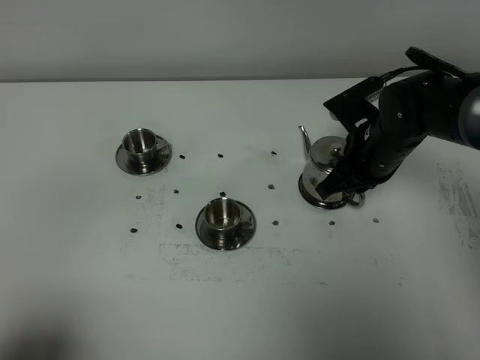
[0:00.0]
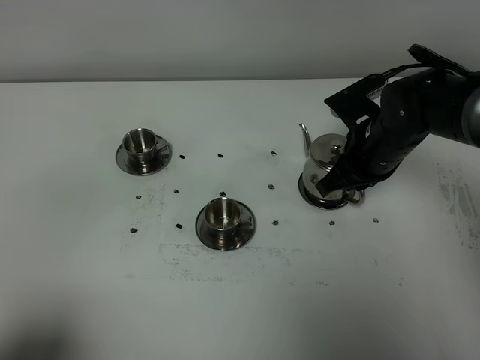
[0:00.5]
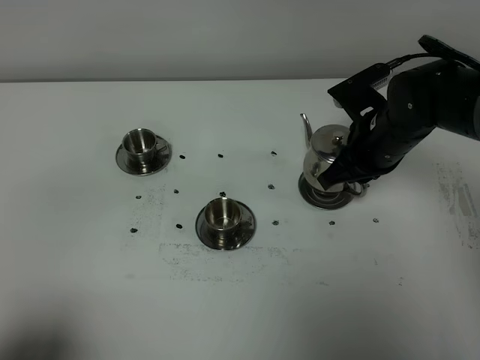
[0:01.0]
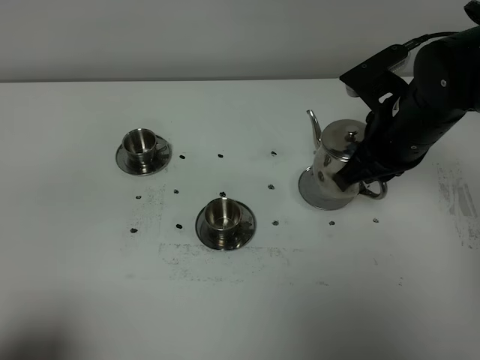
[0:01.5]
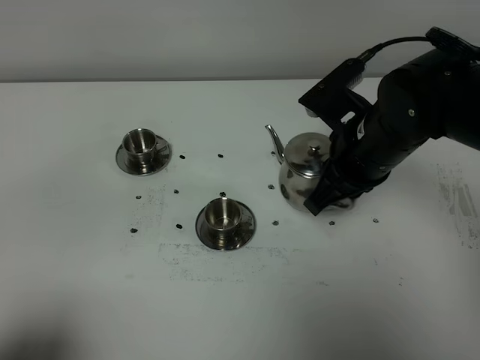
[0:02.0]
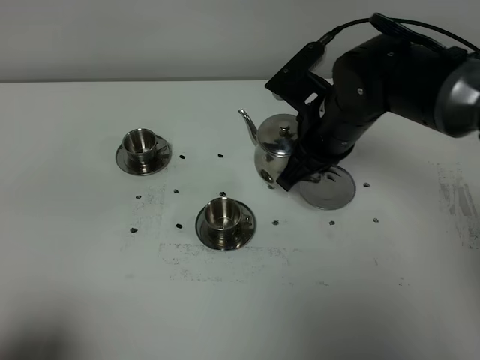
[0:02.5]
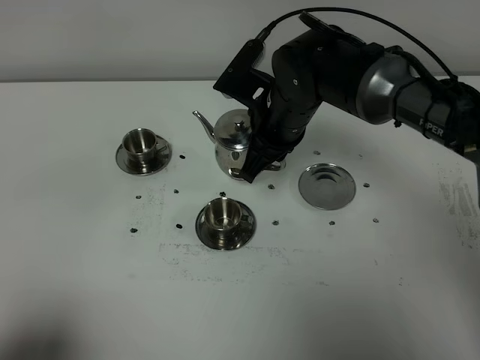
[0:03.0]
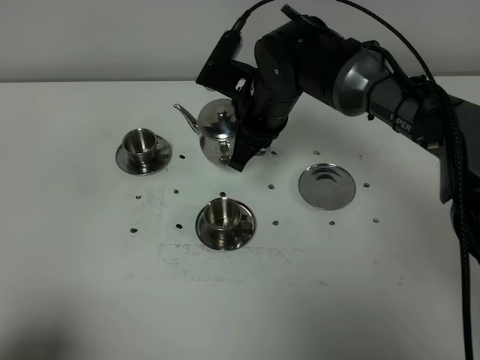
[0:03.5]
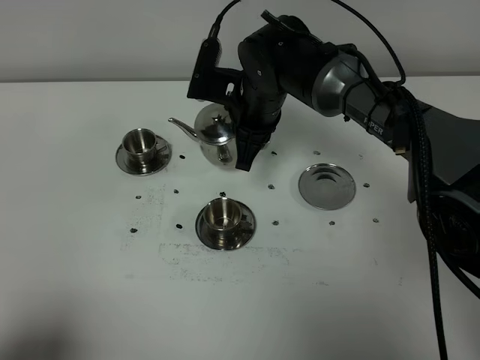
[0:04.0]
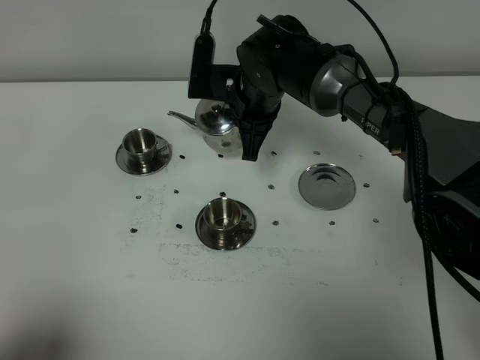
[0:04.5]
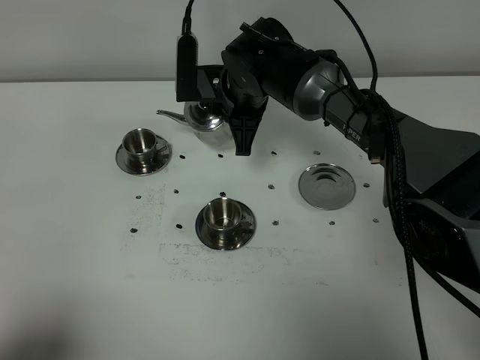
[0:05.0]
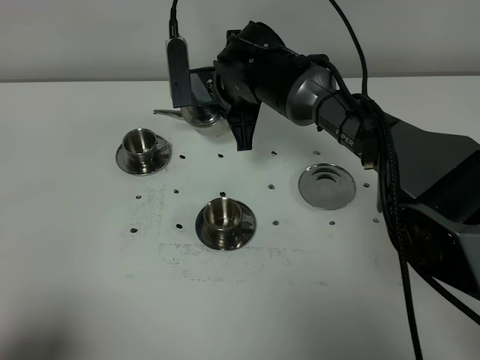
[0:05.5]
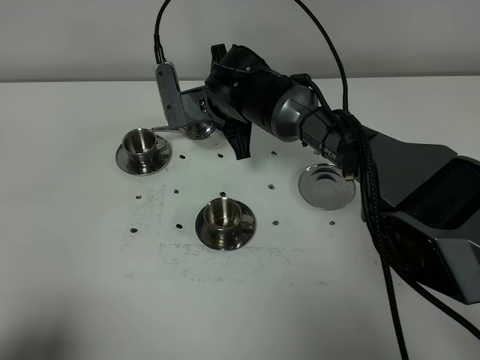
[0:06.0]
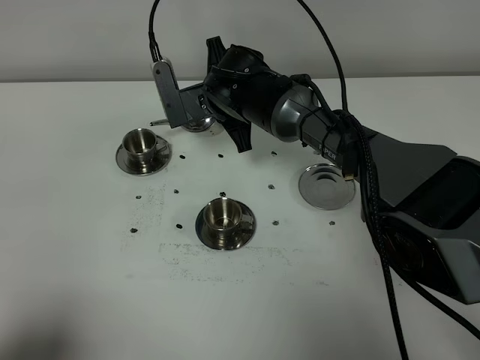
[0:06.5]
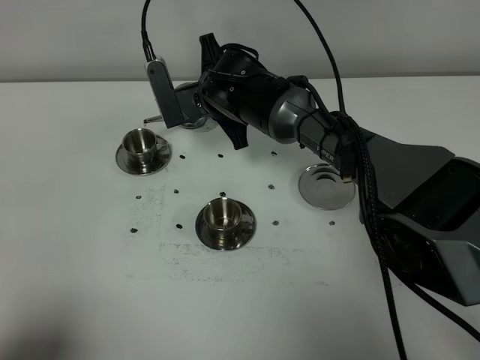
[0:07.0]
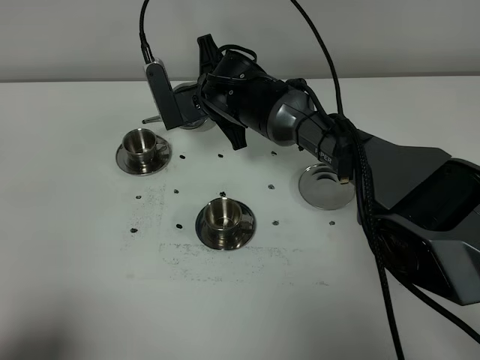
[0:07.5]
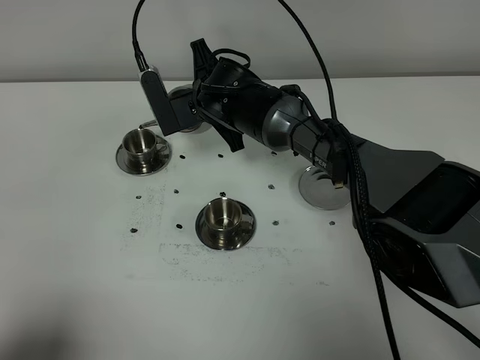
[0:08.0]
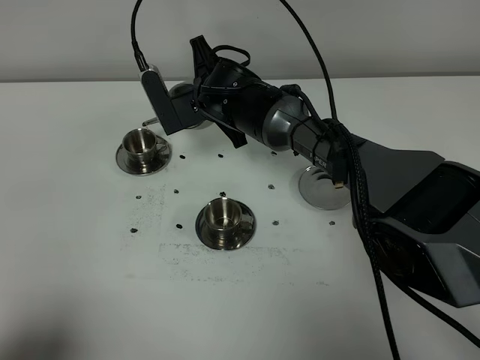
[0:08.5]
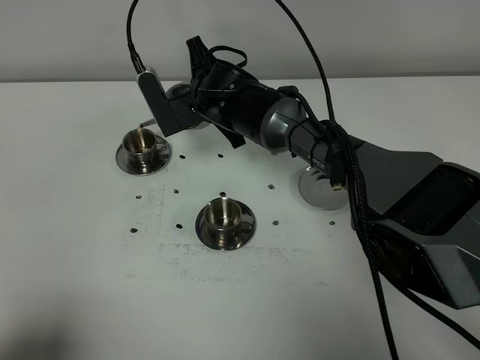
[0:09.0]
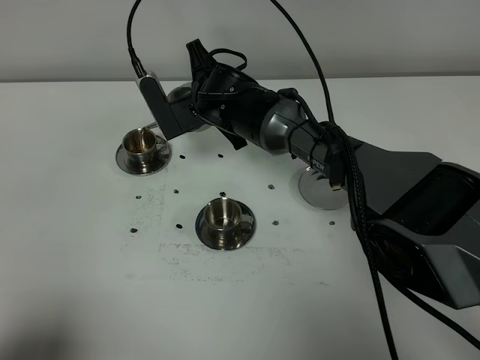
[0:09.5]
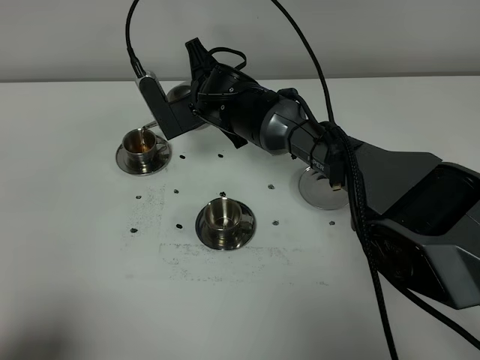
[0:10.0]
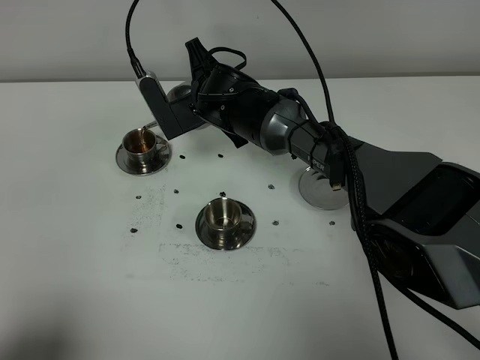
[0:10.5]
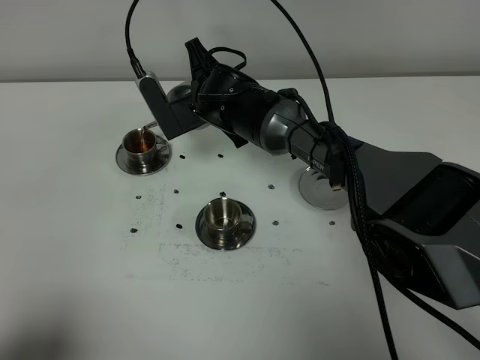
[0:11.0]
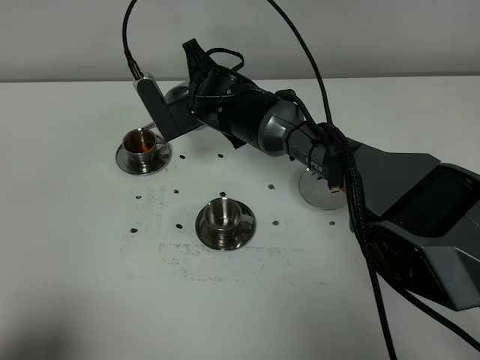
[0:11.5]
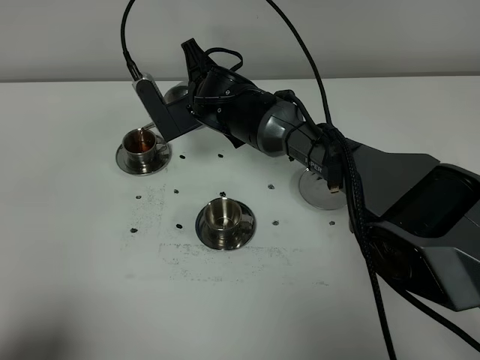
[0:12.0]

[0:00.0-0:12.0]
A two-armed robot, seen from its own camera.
Task of the whole recording: grasp the stainless steel teapot and pour the tea into the two stainless steel teacups one by one, put the stainless steel teapot back in its original place.
0:00.0 to 0:02.0: The right gripper shifts some 10 cm upward and backward.
0:02.0 to 0:04.0: The right gripper is displaced forward and to the left by some 15 cm.
0:06.0 to 0:10.0: The grippers move only a little.
0:10.0 to 0:12.0: Both grippers stay put.

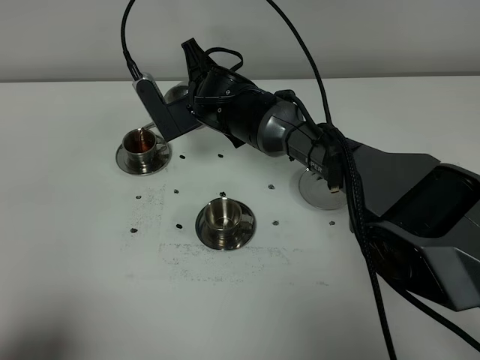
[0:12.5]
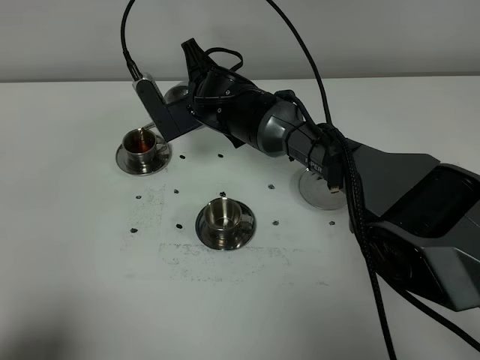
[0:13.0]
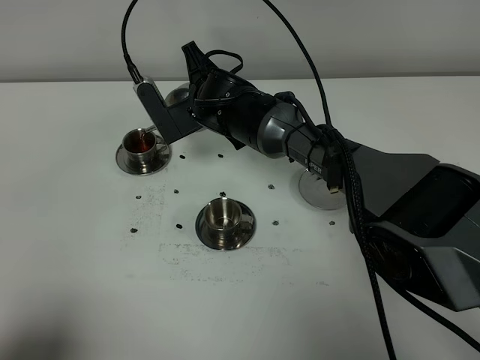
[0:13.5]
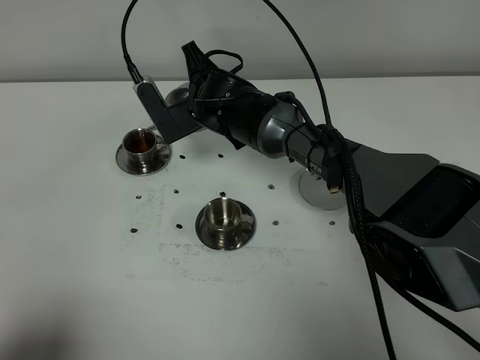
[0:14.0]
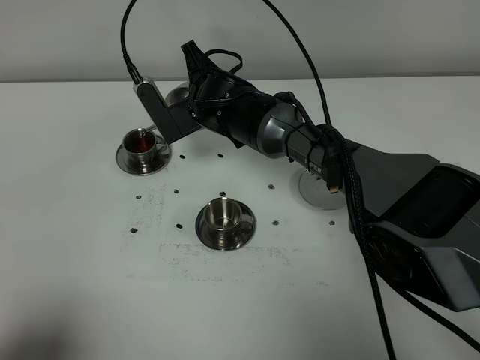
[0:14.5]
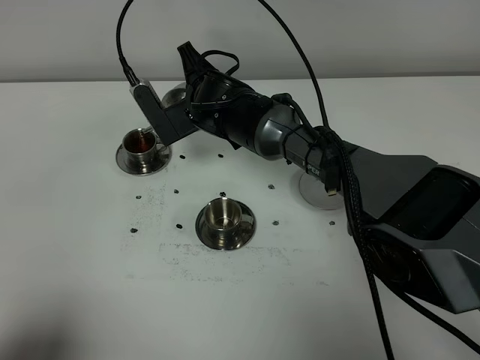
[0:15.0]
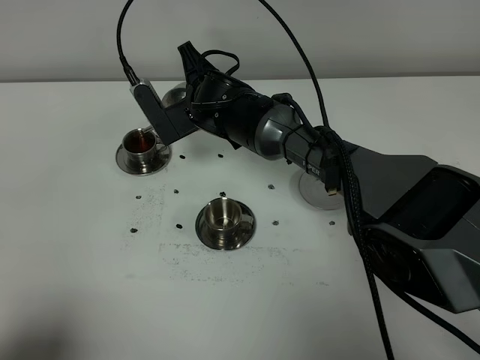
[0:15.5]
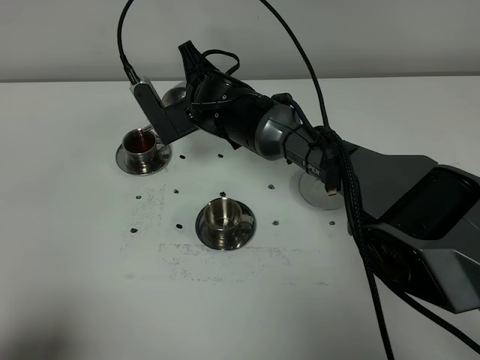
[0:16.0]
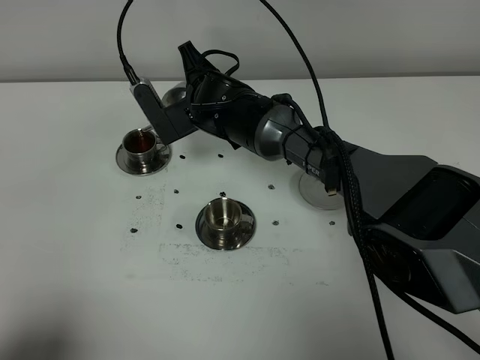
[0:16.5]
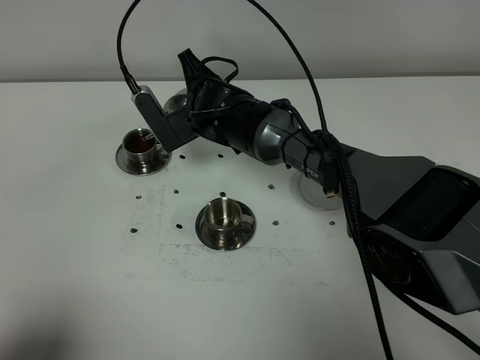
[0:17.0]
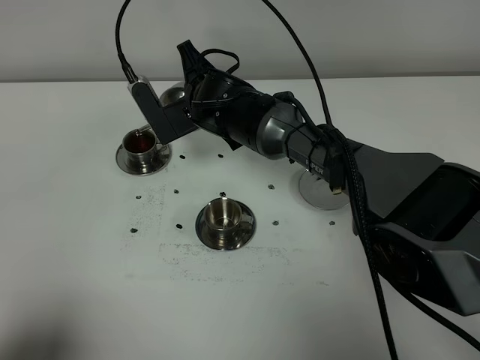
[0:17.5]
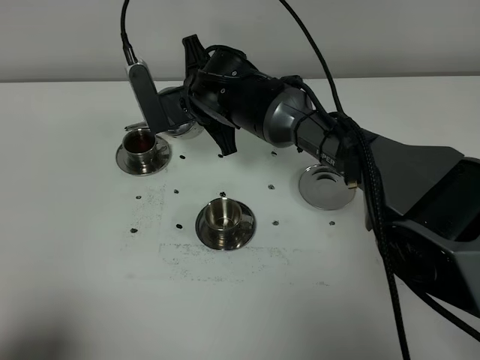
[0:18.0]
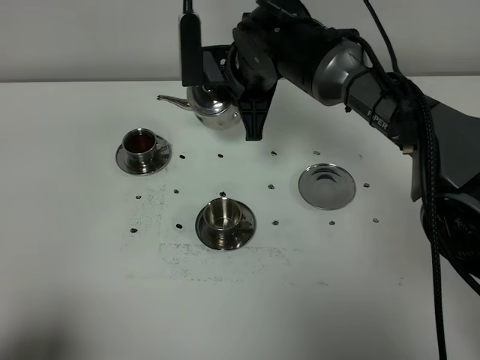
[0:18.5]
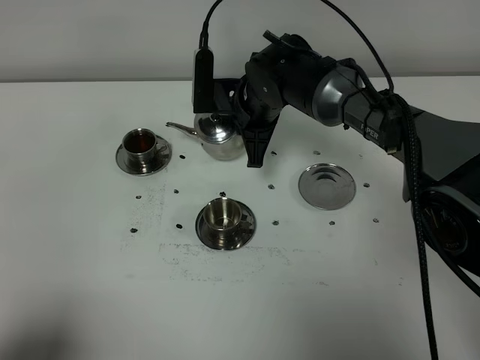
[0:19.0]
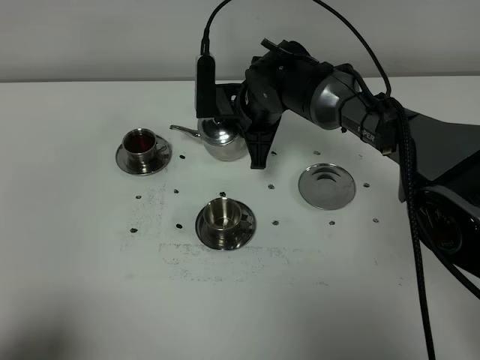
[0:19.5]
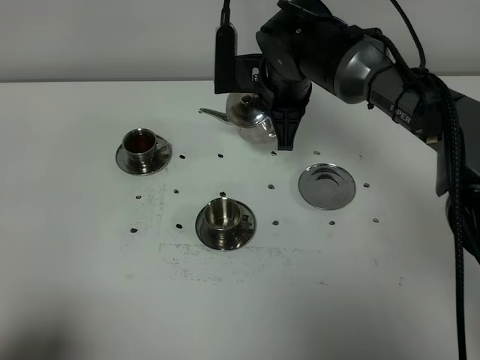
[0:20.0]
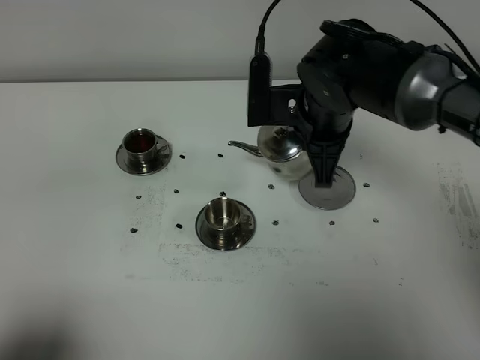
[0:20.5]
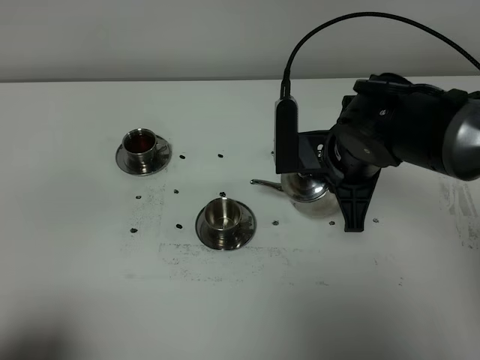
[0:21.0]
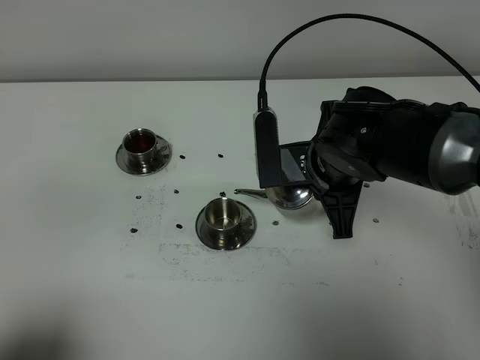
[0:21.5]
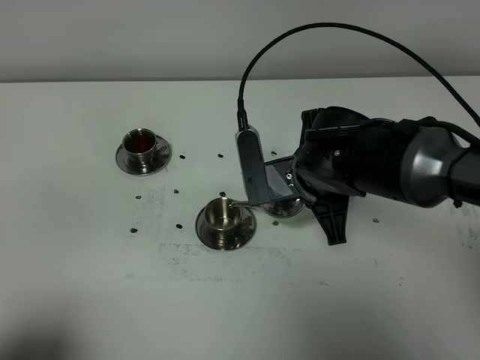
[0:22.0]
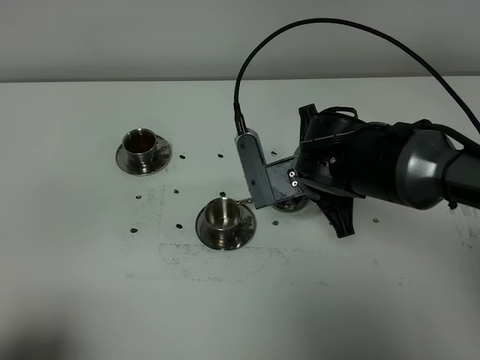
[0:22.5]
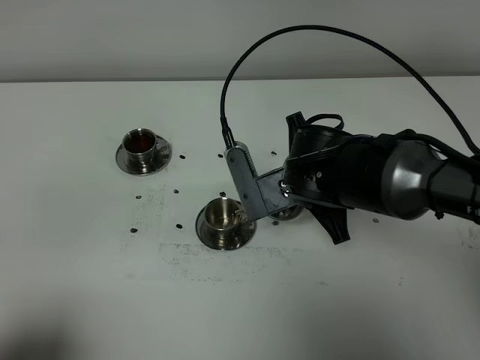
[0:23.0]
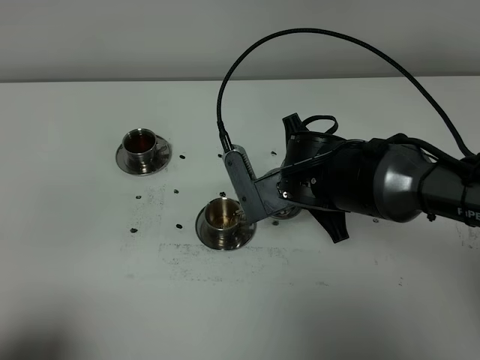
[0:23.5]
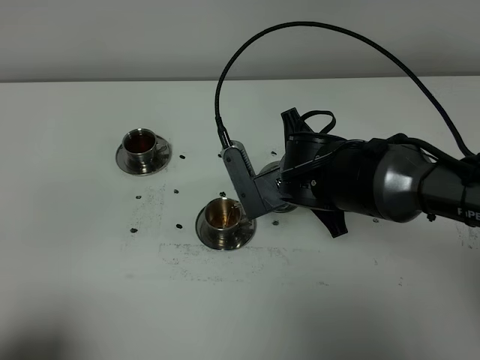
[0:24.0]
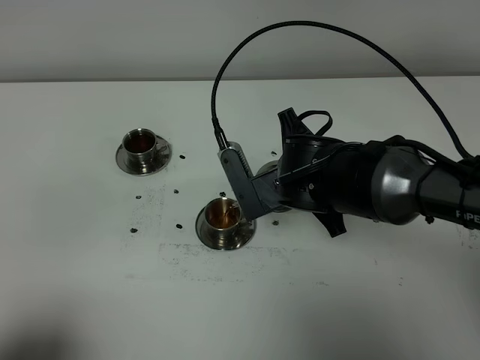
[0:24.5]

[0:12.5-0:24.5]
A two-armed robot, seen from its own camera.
Task of the whole recording: grasp the stainless steel teapot and pour the tea into the two stainless steel teacups one by one, put the stainless steel teapot back in its original place.
0:12.5 to 0:16.5: The two grippers keep their place.
0:16.5 to 0:18.5: The right gripper moves upward and to the right, some 10 cm.
0:18.5 to 0:20.5: The right gripper is displaced backward and to the right by approximately 10 cm.
0:20.5 to 0:22.5: The right gripper is displaced backward by some 5 cm.
0:22.5 to 0:24.5: There are only small adjustments of the grippers.

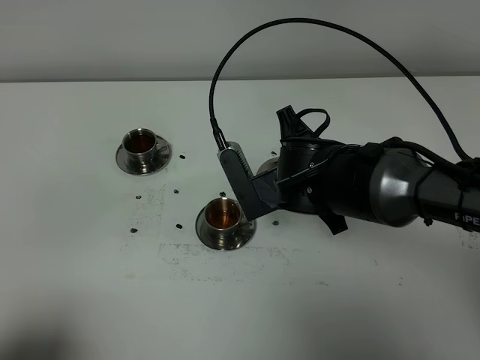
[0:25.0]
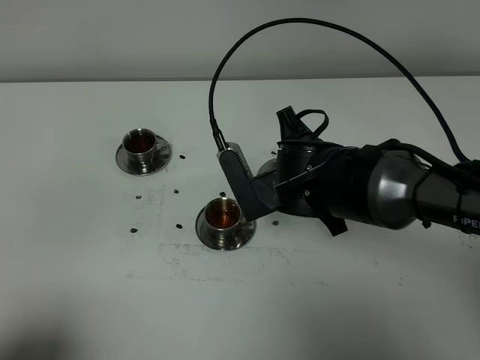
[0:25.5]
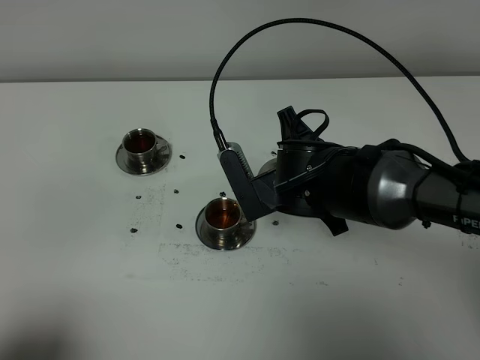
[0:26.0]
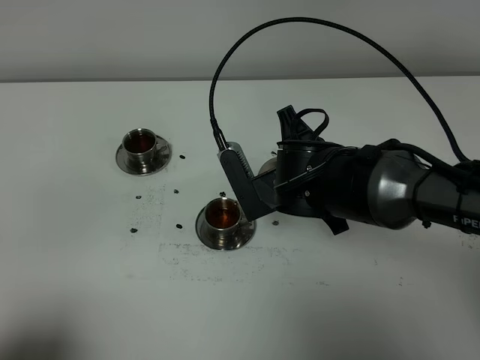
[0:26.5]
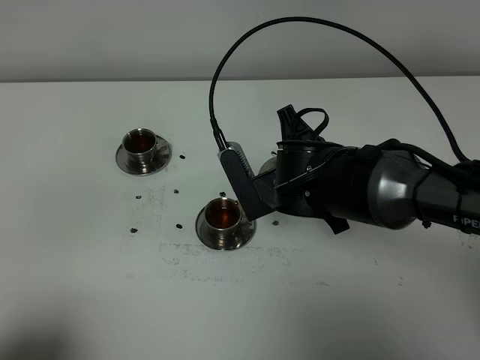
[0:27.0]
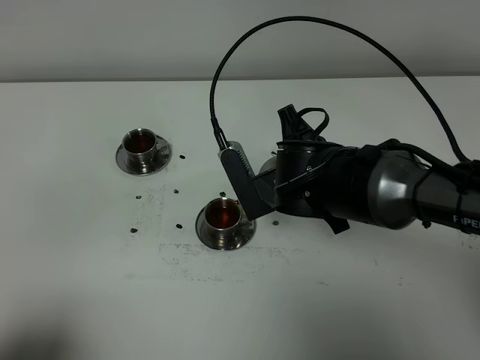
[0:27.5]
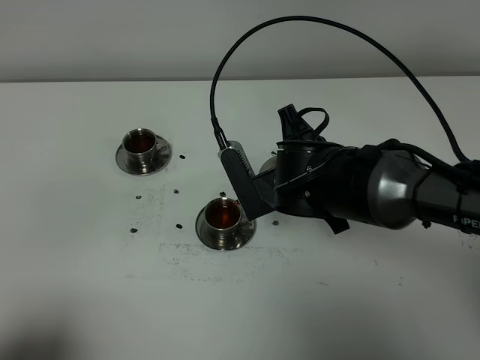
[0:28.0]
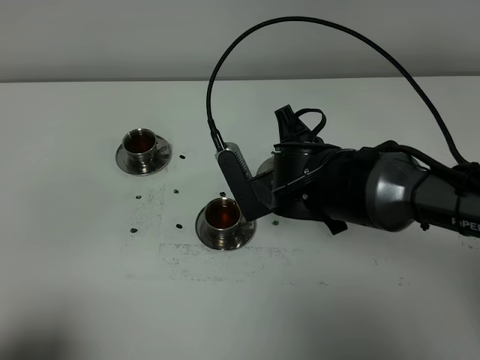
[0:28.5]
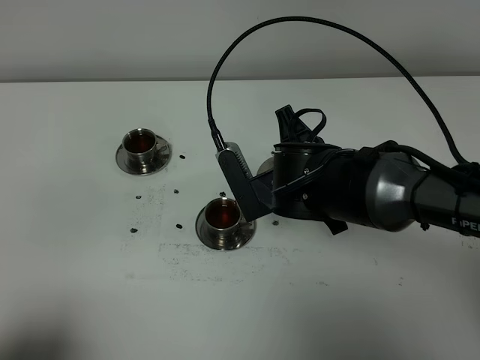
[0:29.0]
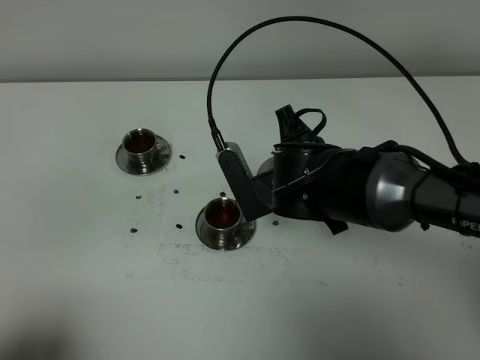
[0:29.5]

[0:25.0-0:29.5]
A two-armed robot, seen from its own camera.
Task of the whole recording: grasp the stainless steel teapot and pour the tea into the two stainless steel teacups one by one, put the stainless steel teapot back in its original place.
0:25.0 to 0:29.5: The two grippers keep their place.
